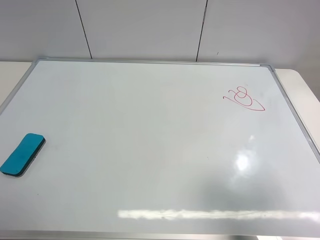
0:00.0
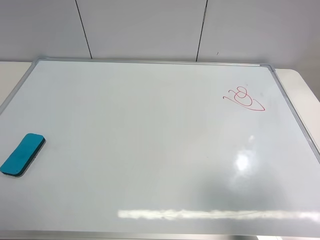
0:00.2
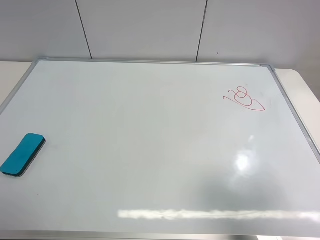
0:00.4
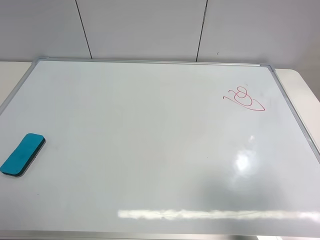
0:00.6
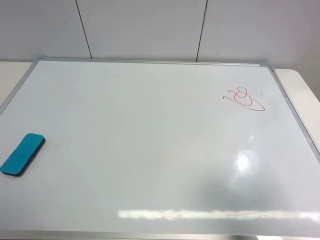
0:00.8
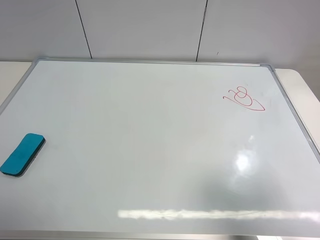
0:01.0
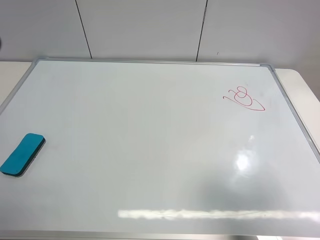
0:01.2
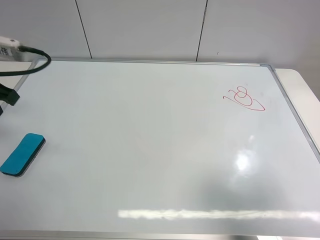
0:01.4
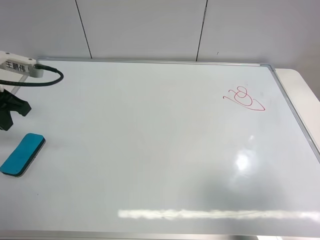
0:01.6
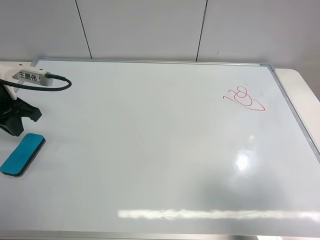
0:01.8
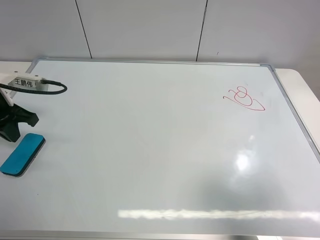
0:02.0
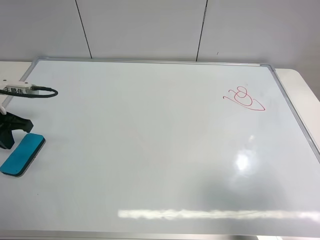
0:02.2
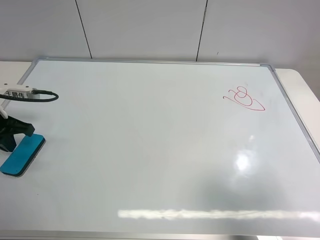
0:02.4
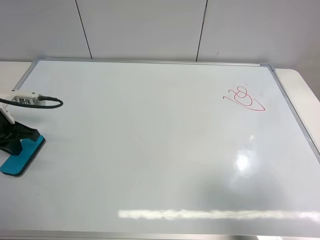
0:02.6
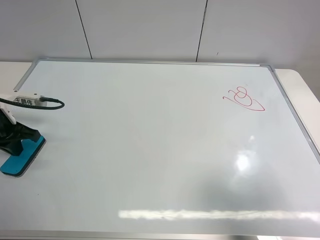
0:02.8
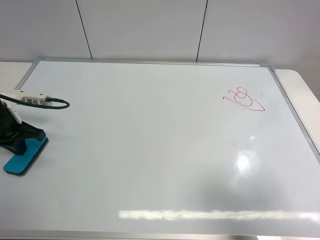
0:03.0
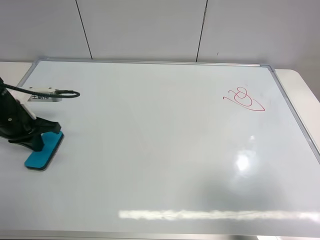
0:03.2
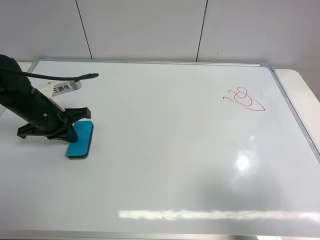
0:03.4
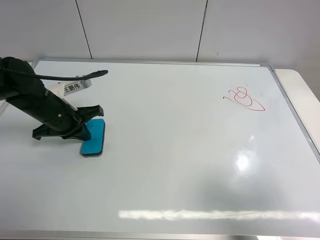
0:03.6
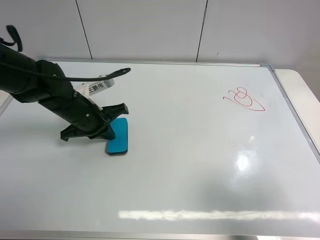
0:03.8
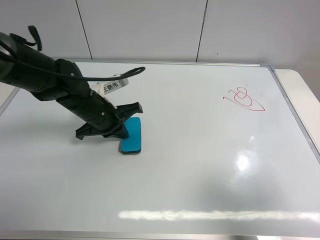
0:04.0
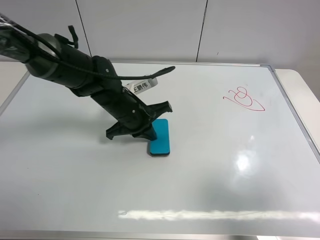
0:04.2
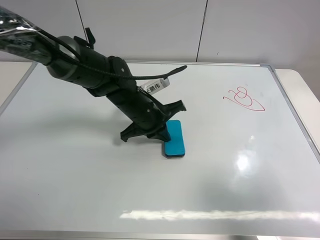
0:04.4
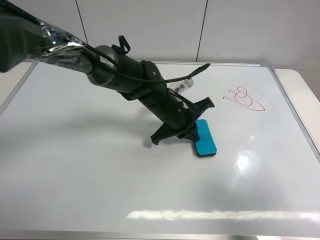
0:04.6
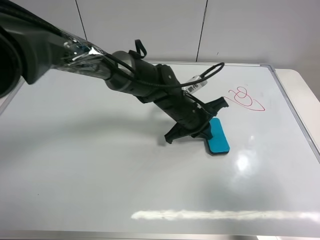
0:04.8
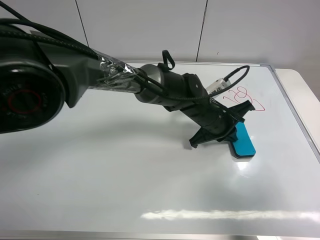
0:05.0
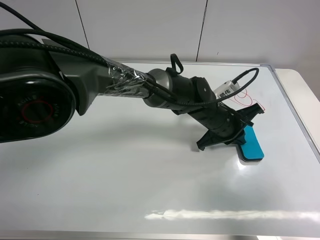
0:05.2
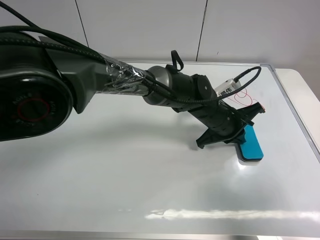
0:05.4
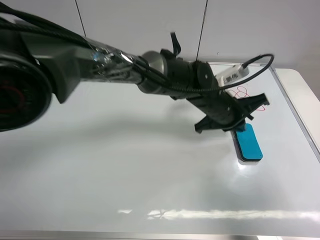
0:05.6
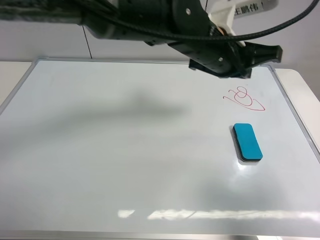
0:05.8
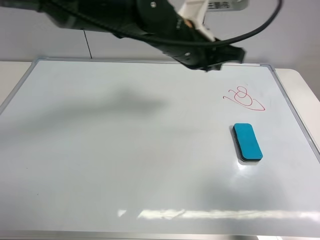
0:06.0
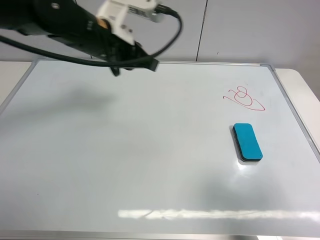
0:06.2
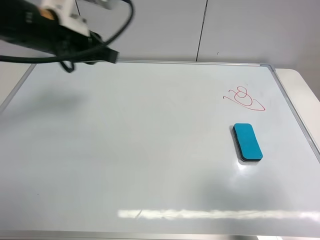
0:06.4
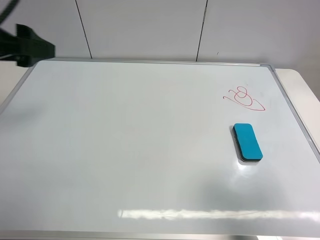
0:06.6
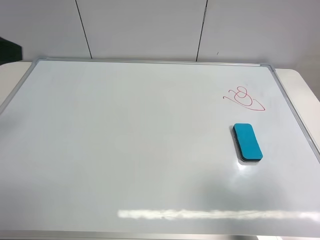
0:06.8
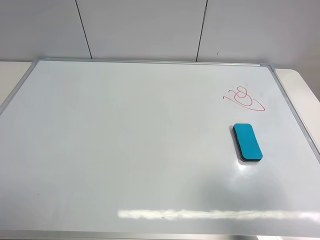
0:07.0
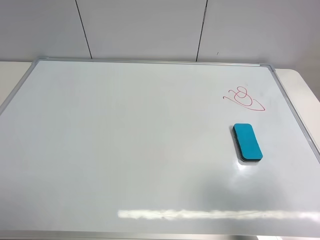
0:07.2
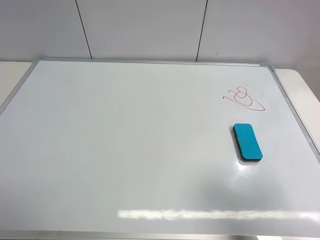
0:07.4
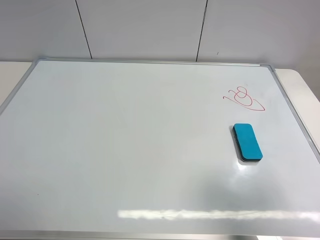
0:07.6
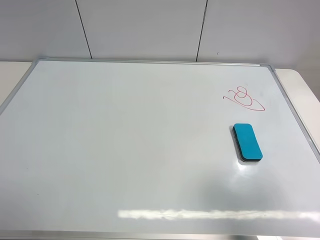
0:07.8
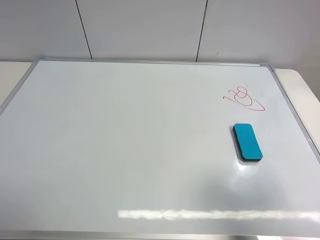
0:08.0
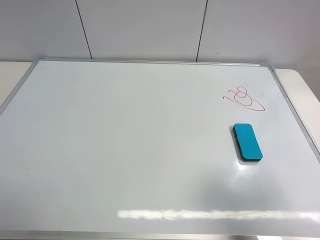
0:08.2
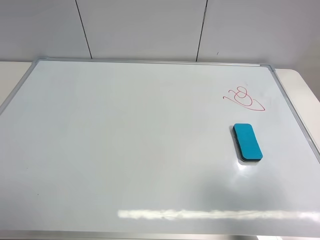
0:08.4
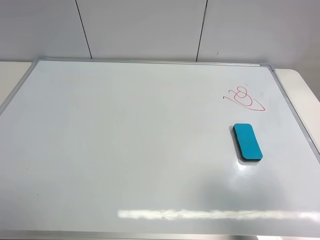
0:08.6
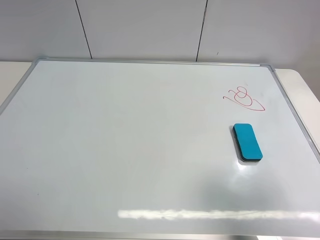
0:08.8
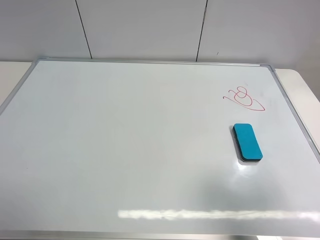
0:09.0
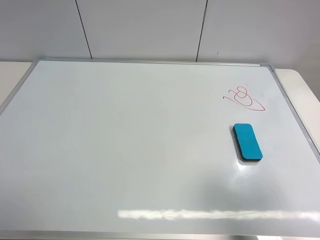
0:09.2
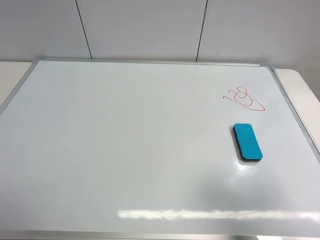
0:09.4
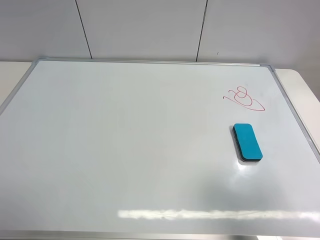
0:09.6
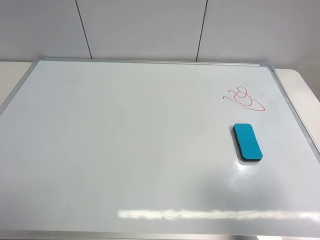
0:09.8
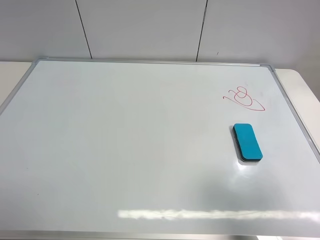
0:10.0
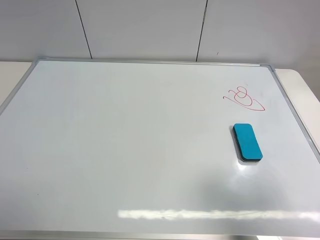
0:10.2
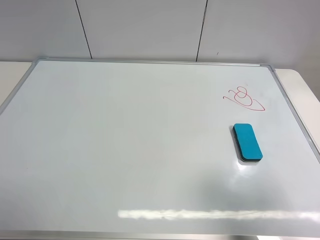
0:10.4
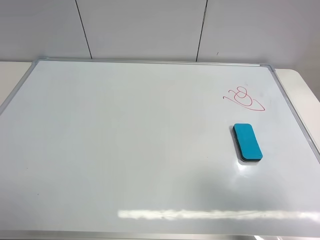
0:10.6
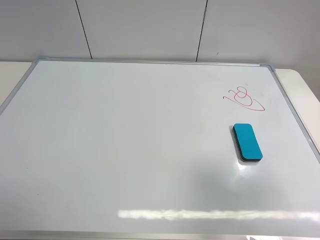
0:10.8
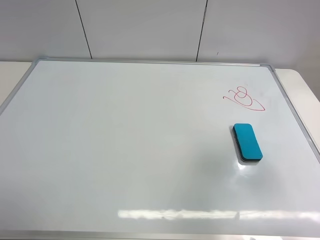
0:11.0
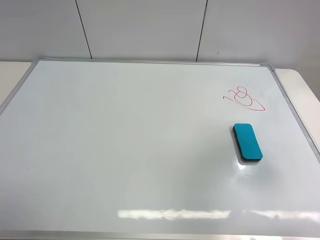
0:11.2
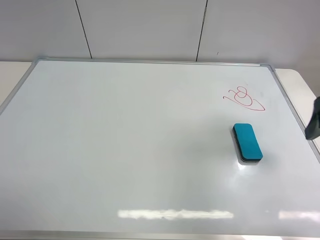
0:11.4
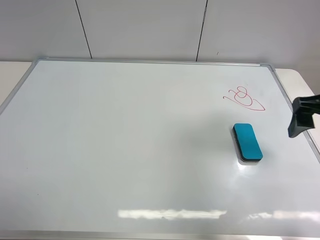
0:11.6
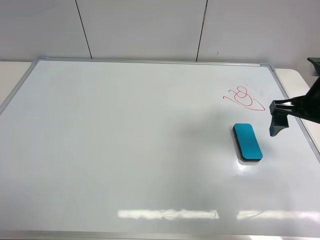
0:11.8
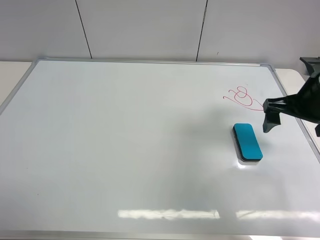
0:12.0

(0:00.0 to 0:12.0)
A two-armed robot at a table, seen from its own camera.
Task of the whole recording: use the left gripper to place the eraser in the right, use the right gripper to pick up the eraser, wipe the notes on the whiteboard clean, and then put it down.
Step, 0:00.0 - 0:05.6: Move the board eraser to the right of the whiteboard with left gripper.
0:00.0 - 0:01.6: The left gripper heads forward, covering roughly 25 cm, and closes.
0:01.6 - 0:03.0: The left gripper heads downward, covering roughly 10 cm.
0:03.0 - 0:04.4: The left gripper shifts approximately 30 cm to the right.
0:04.4 - 0:06.0: The left gripper is displaced upward by roughly 15 cm.
0:06.0 - 0:07.6: The left gripper travels backward and to the left by roughly 50 cm, and opens its fingers.
0:10.4 - 0:12.0: The right gripper goes about 25 cm forward.

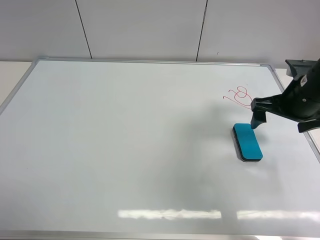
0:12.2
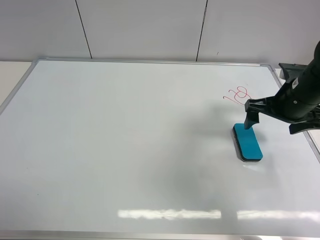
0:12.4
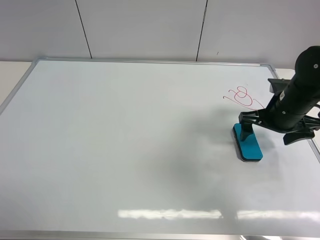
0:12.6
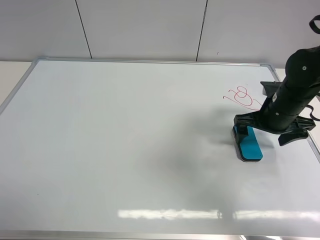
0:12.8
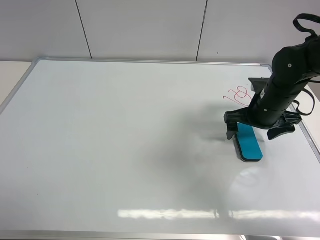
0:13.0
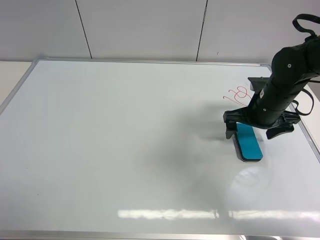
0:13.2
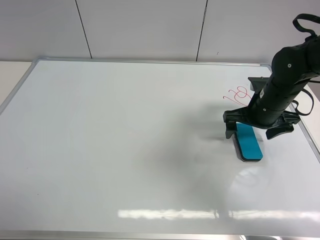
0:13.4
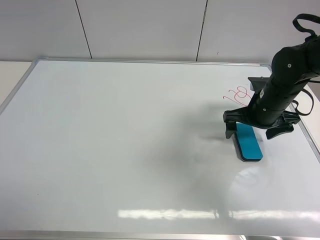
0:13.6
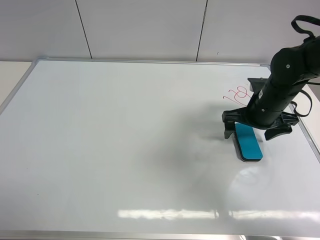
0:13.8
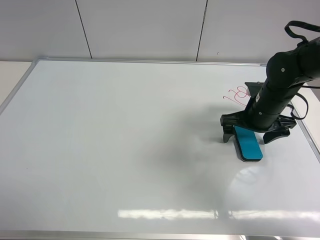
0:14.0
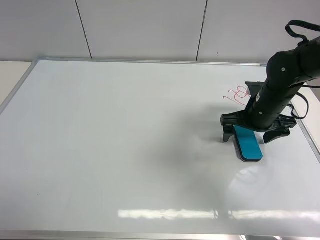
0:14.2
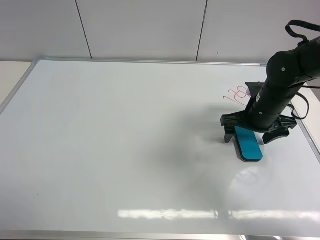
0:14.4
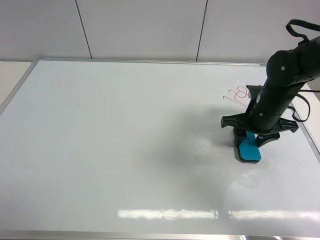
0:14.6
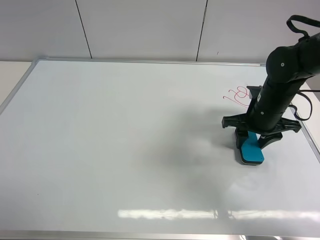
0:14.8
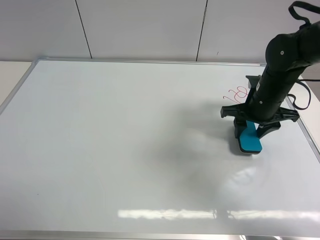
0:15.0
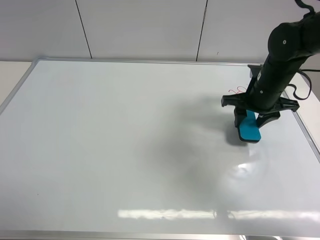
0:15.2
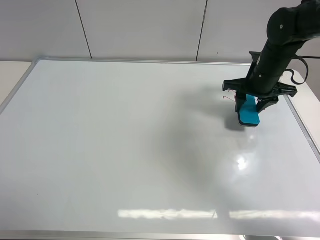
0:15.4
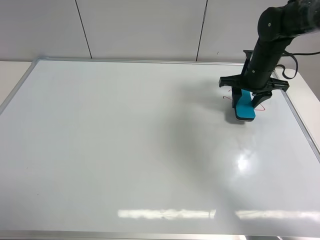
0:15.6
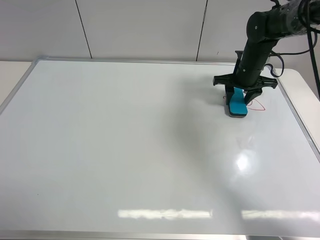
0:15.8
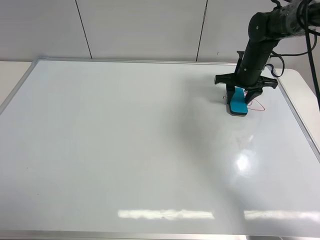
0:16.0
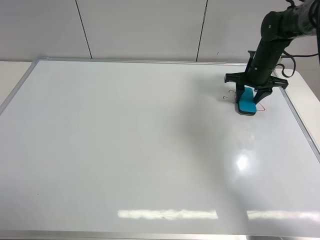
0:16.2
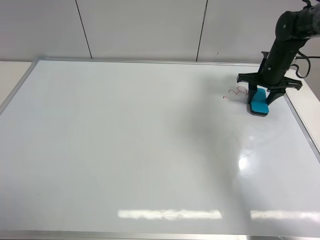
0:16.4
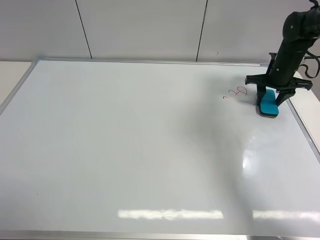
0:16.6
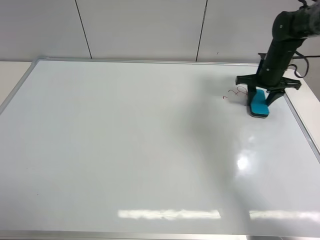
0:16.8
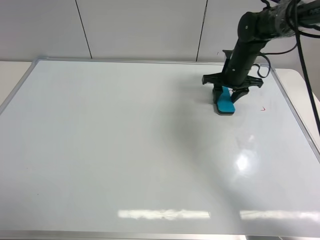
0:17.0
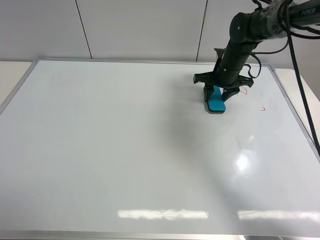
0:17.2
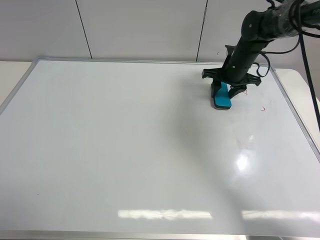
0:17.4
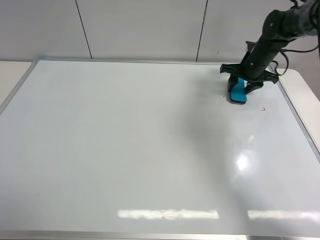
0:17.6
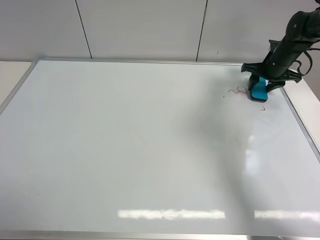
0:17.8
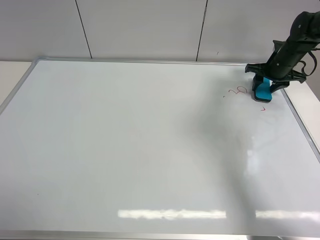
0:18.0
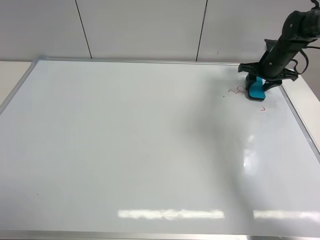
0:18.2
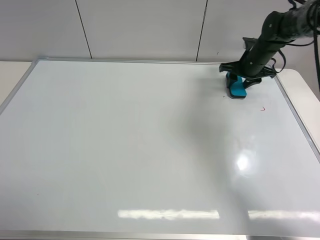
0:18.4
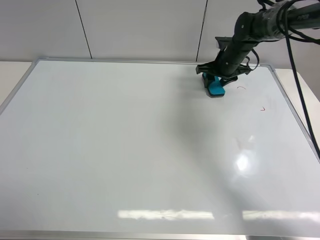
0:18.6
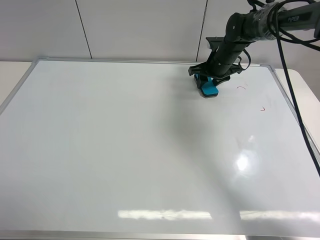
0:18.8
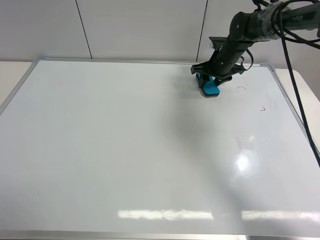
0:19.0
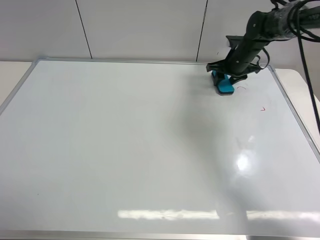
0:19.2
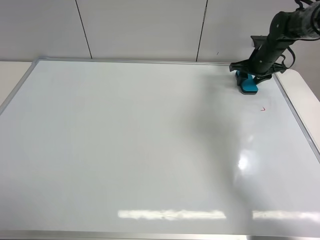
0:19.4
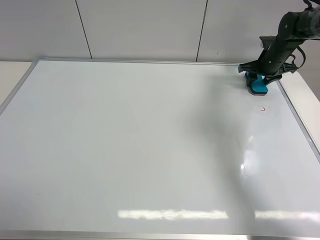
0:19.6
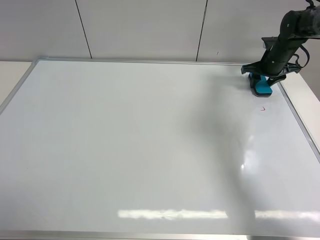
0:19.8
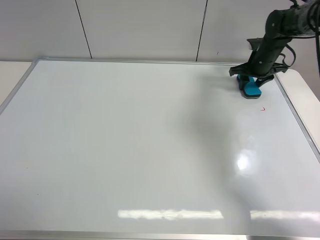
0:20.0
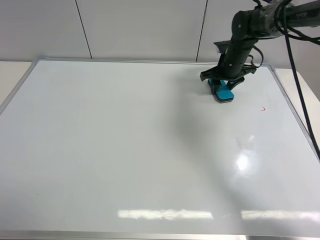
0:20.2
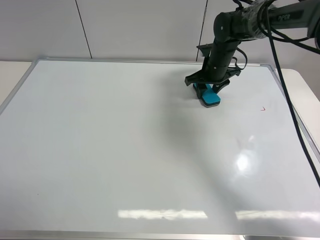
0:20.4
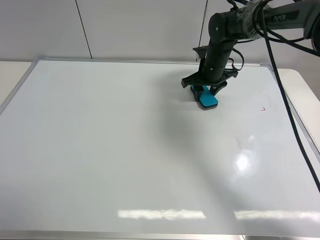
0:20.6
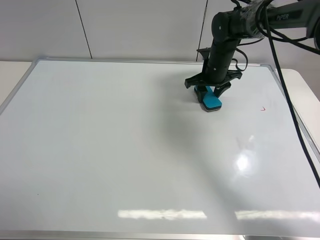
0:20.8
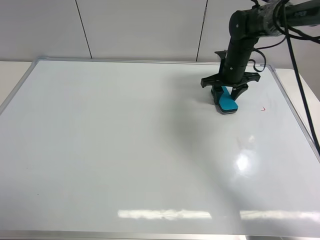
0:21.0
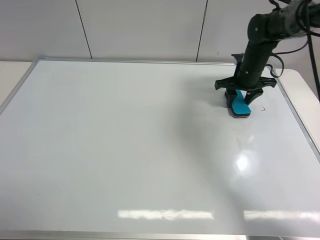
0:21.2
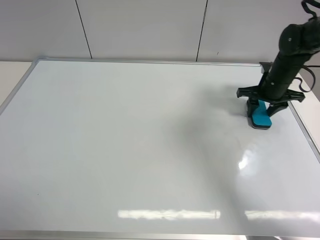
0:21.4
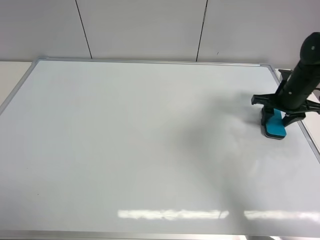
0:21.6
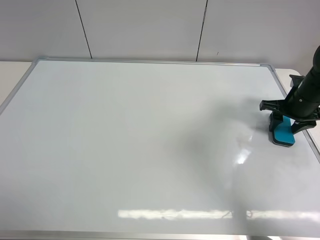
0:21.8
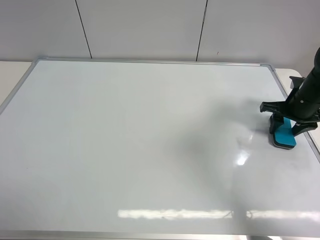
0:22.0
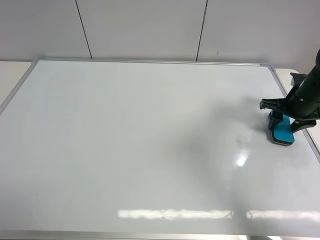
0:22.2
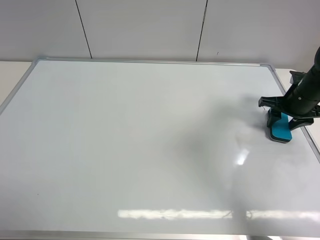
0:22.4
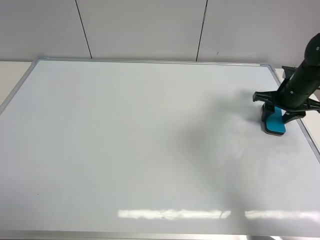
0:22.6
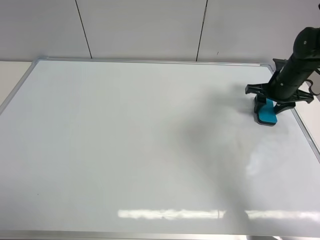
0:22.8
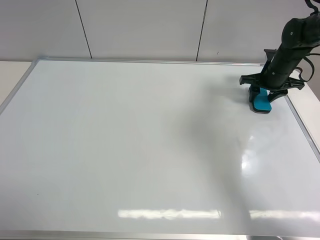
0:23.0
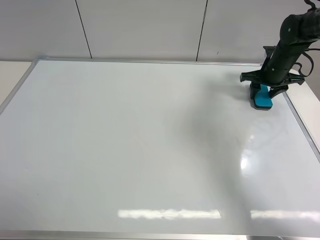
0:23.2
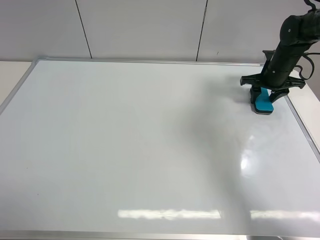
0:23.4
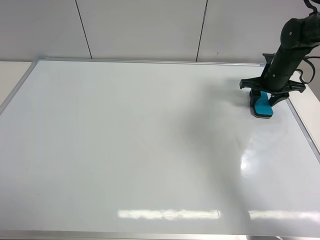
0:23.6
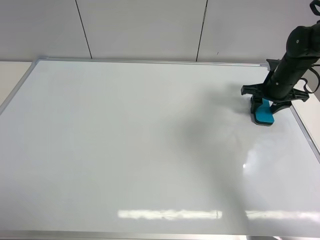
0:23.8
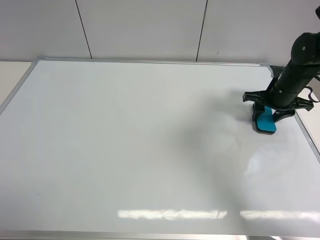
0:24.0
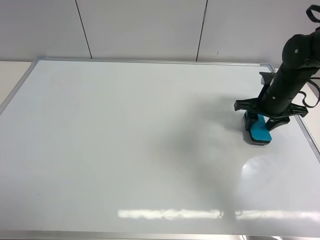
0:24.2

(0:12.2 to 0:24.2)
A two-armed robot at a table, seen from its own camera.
Task of the whole recording: use the left gripper to place the eraser in the right, use the right gripper to pick up the eraser, wipe the notes on the whiteboard clean, and then put it down.
Step, 0:12.2 - 0:14.8: Pick up the board eraser with right gripper.
Step, 0:15.0 - 0:24.0: Wipe off the writing on the board with right gripper.
0:12.2 - 0:13.8: The right gripper moves downward, some 5 cm.
0:13.8 - 0:15.2: The right gripper closes up.
0:15.2 - 0:16.6: The right gripper is displaced forward and to the right by roughly 15 cm.
0:16.6 - 0:18.2: The right gripper goes left and right, about 15 cm each way, reversing 2 times.
0:18.2 - 0:19.8: The right gripper travels to the left and back again, some 10 cm each way.
0:19.8 - 0:21.2: The right gripper moves to the left and backward, about 10 cm.
0:21.2 - 0:22.6: The right gripper heads to the right and backward, covering some 10 cm.
0:22.6 - 0:24.2: The right gripper travels to the left by roughly 5 cm, and goes forward and returns, roughly 10 cm each way.
